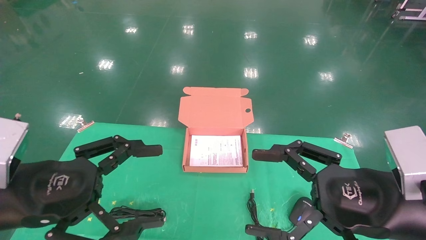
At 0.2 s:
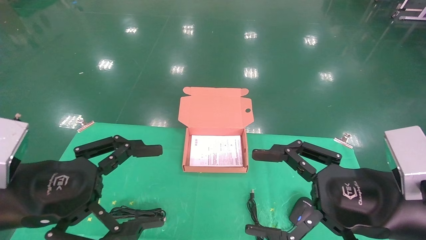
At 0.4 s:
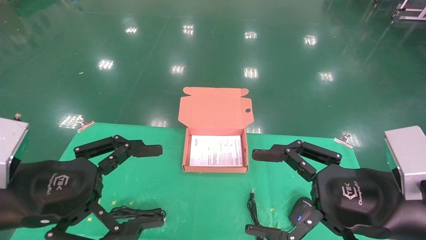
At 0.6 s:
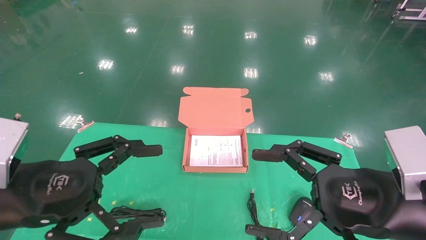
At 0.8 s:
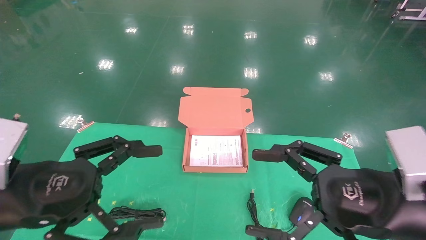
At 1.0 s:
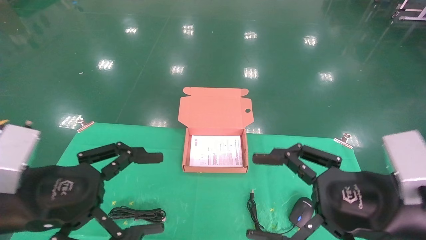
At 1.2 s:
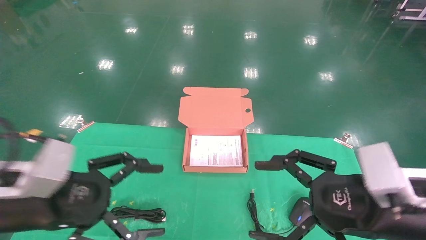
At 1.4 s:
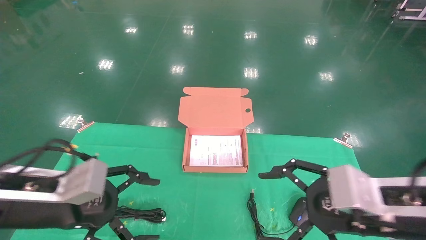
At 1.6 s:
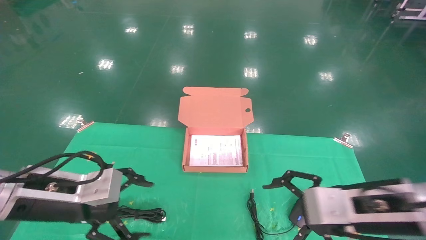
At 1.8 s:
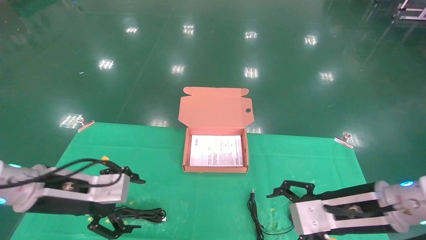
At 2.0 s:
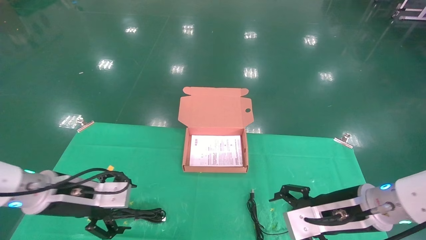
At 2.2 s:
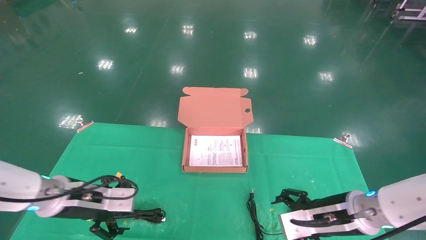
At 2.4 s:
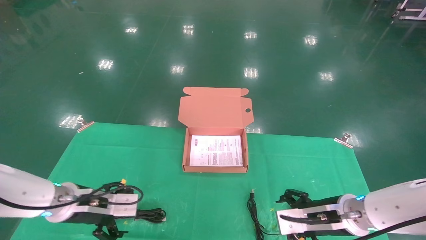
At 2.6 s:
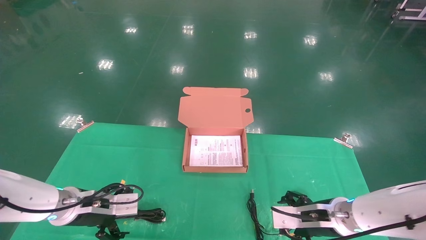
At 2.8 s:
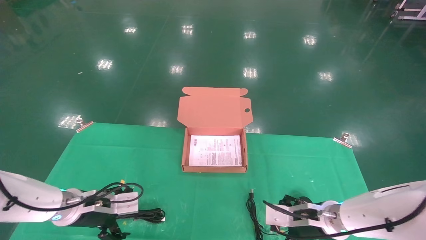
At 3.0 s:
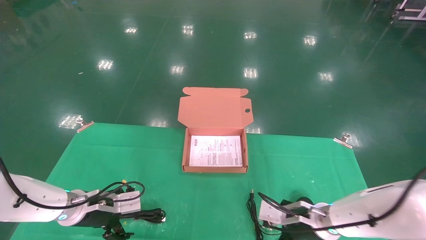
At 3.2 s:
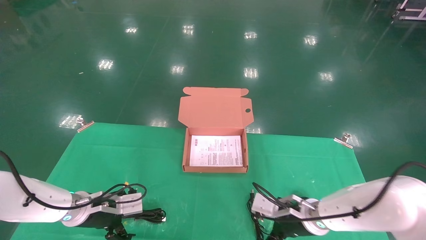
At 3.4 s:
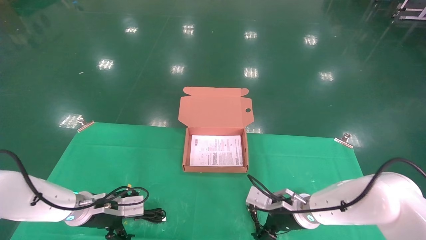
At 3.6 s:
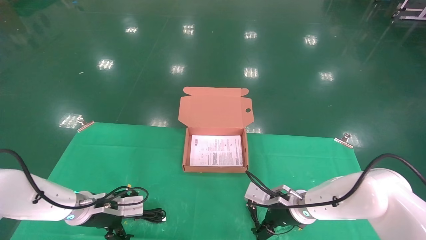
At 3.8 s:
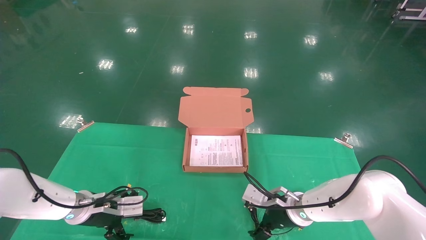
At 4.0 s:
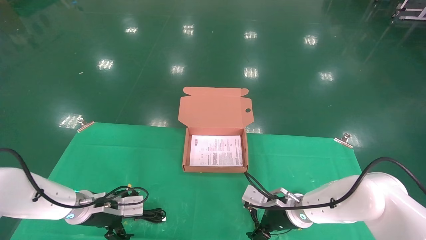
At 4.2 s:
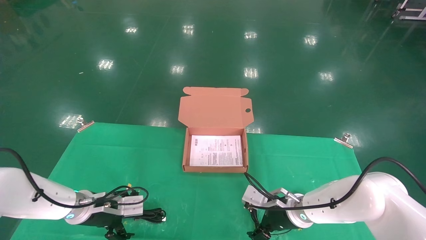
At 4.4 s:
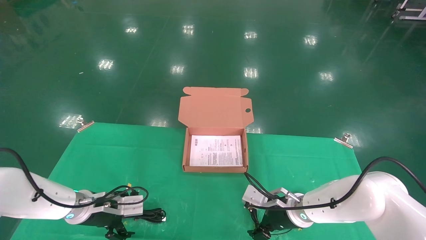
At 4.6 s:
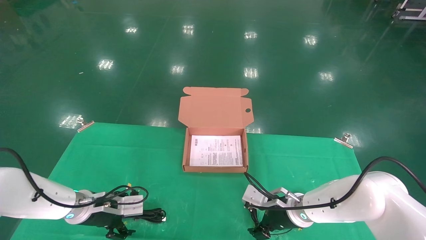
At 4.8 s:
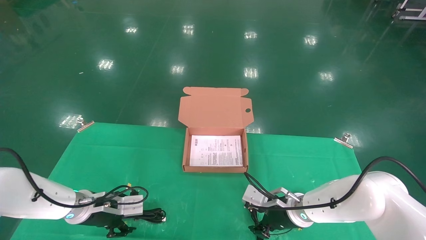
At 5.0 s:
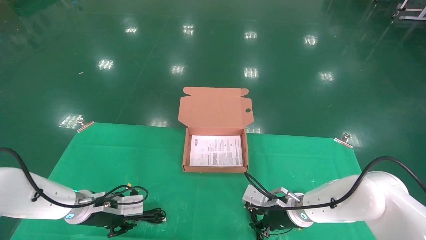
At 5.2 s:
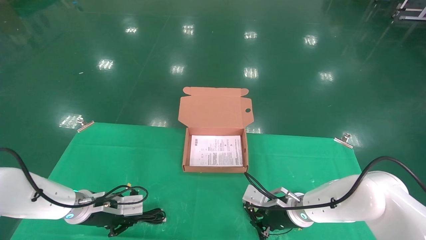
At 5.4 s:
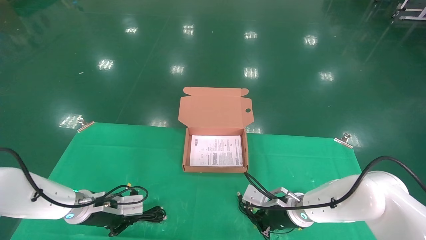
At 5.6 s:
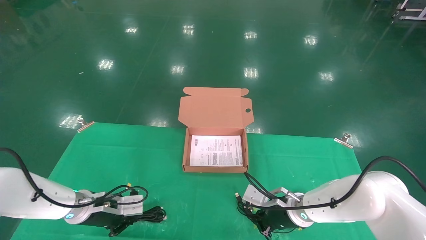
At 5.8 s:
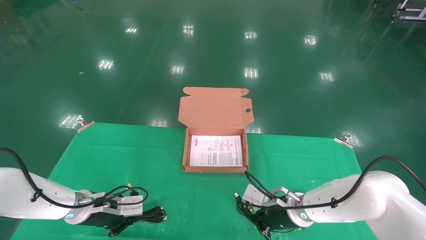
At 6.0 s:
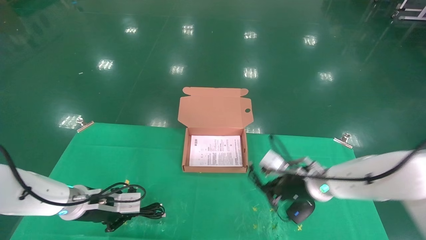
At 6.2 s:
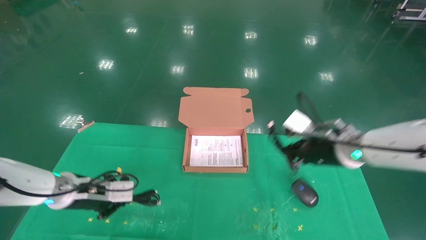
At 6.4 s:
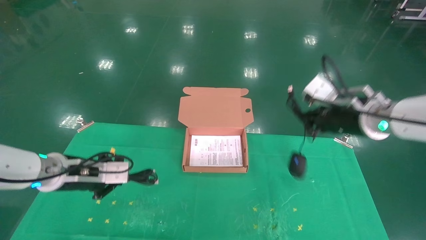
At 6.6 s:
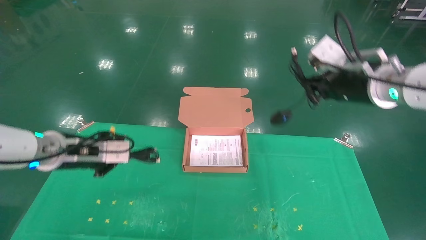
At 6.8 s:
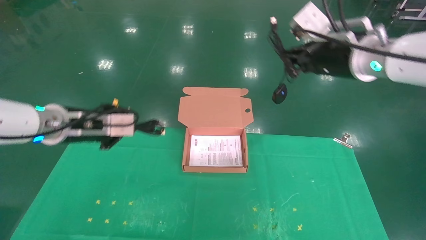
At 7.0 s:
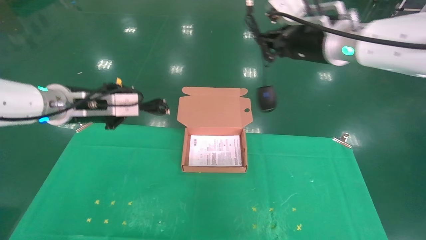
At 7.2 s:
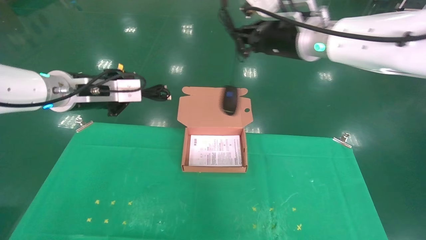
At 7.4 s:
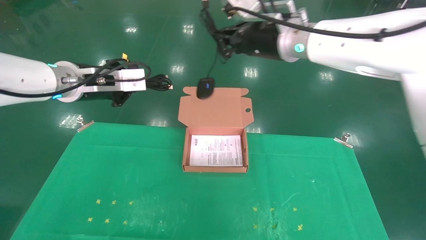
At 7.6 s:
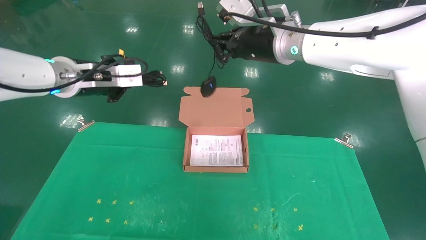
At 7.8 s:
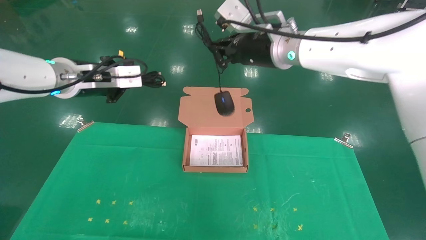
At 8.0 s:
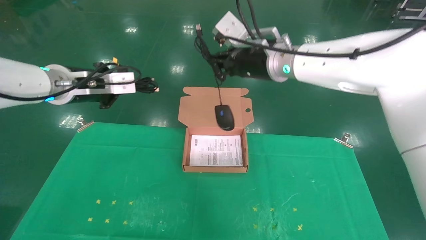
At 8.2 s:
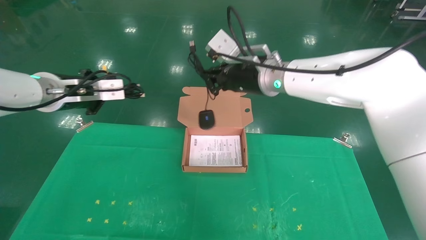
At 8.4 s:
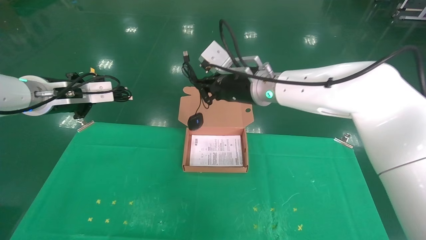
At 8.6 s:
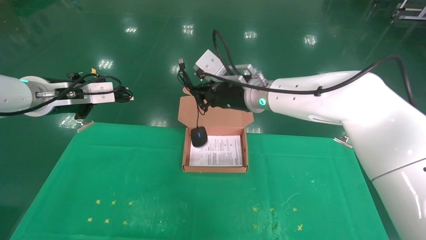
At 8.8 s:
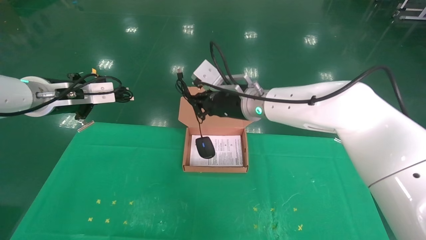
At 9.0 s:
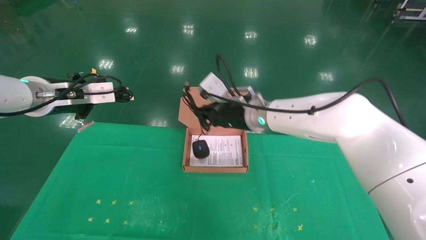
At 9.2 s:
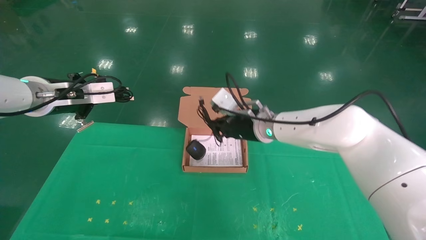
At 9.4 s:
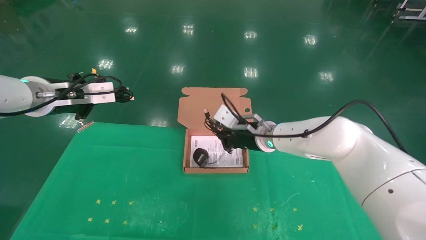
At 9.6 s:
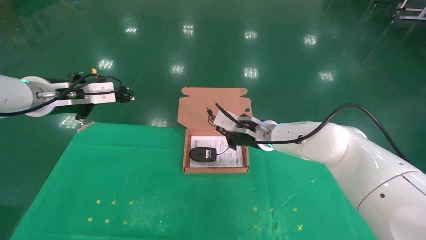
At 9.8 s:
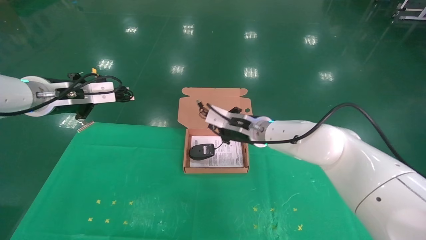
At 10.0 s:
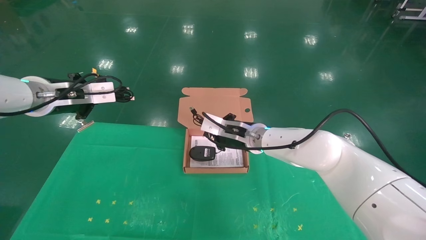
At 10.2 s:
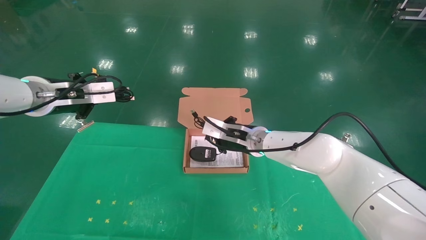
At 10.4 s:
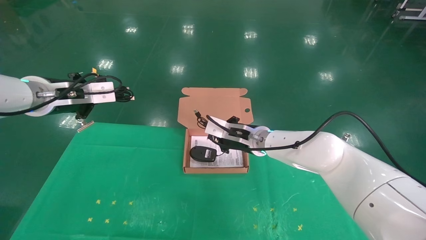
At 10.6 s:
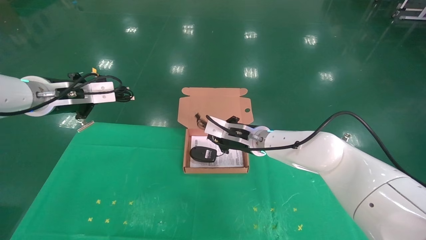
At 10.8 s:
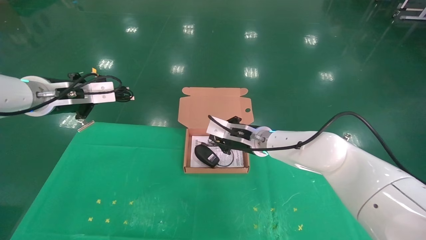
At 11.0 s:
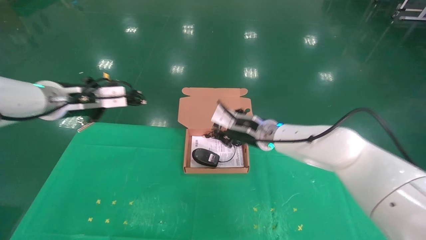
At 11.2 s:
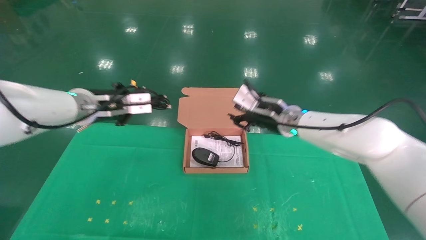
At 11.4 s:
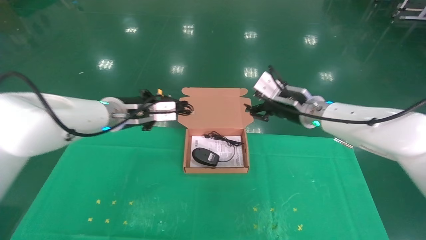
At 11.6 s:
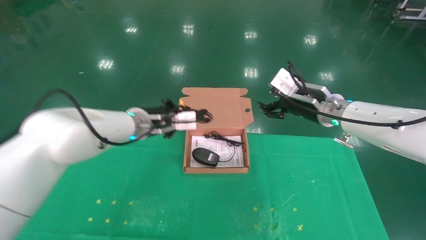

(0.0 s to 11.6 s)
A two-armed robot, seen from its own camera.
Task of the whole recording: grasp data cable left put into box grasp mouse right put into box.
Step, 1.0 s - 6.6 s: Grab and pick up both the mouse and power cord from the accessory packaging area at the same time.
0.0 s - 1.4 s: The left gripper shifts by about 5 cm.
1.4 s - 2.8 s: The left gripper heads forward and downward, covering some 20 cm, while the right gripper moves downward and forward, approximately 20 cm.
2.8 s - 4.4 s: The right gripper shifts by about 5 cm.
4.4 s - 5.8 s: The right gripper closes its fingers. The left gripper closes.
5.8 s - 7.2 s: Both grippers move upward, some 30 cm.
7.2 s - 8.8 s: The left gripper heads to the left, covering some 5 cm, while the right gripper travels downward and to the left by some 15 cm.
8.8 s - 10.2 s: The right gripper is displaced downward by some 10 cm.
10.2 s - 11.6 s: The left gripper travels to the right, downward and forward by approximately 20 cm, while the right gripper is displaced to the right and upward by about 15 cm, and opens its fingers.

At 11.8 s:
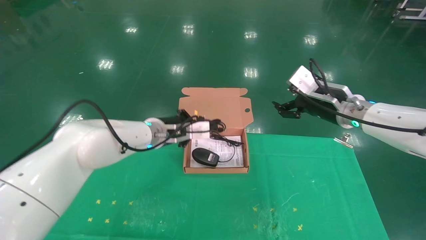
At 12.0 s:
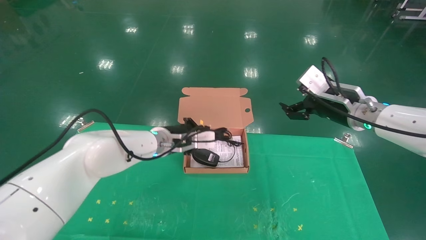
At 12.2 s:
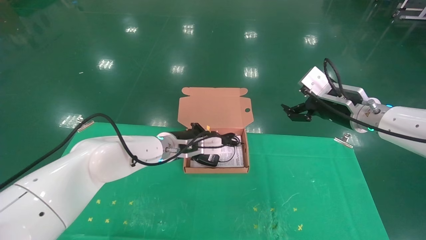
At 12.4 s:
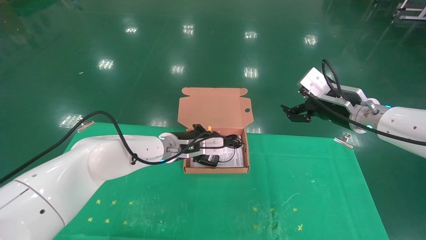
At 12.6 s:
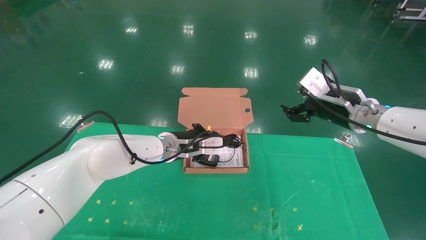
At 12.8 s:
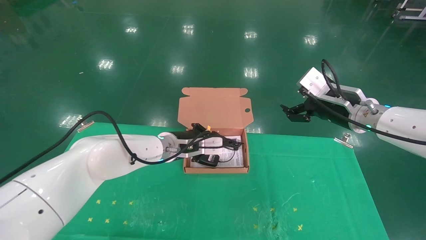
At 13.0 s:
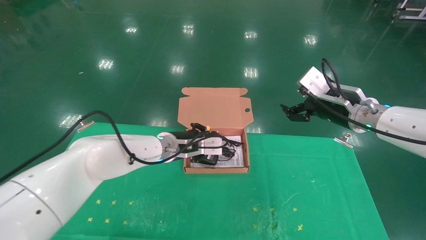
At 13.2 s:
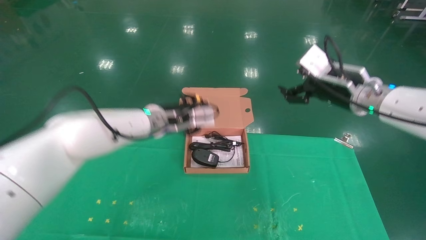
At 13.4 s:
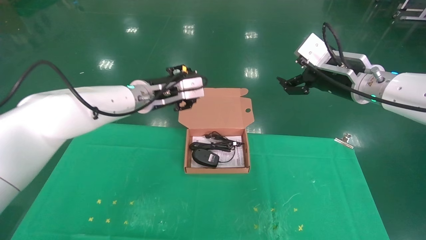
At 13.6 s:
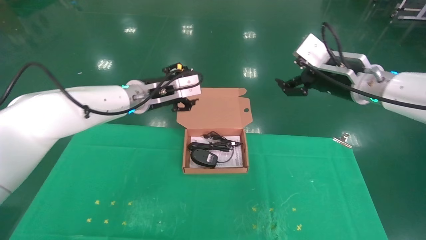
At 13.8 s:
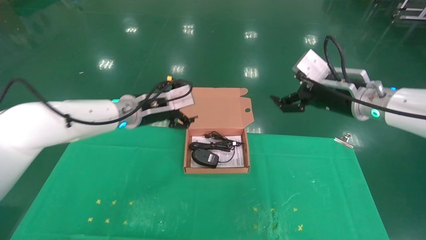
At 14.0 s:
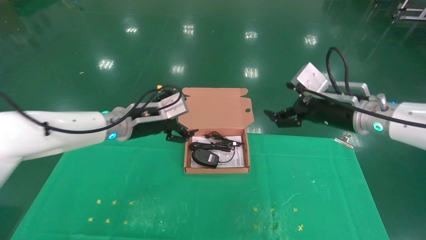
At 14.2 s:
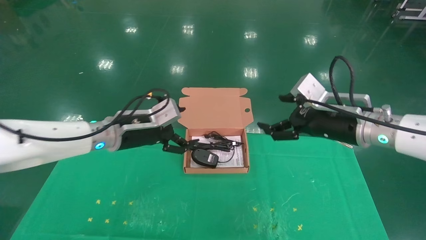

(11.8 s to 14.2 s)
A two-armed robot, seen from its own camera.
Task of the whole recording: grasp data cable left put into box grasp mouse right put into box.
11.8 s - 13.0 s: The grippers move only a little.
13.0 s - 14.2 s: The left gripper heads to the left and backward, covering some 10 cm, and opens its fingers. Meanwhile the right gripper ends up roughly 5 cm from where it was.
